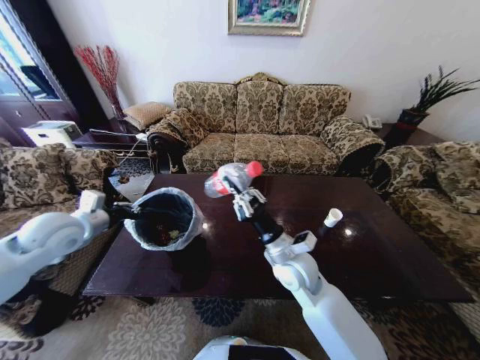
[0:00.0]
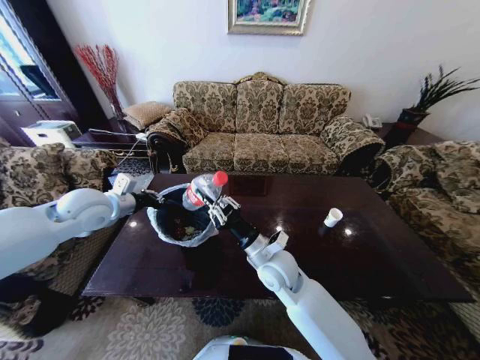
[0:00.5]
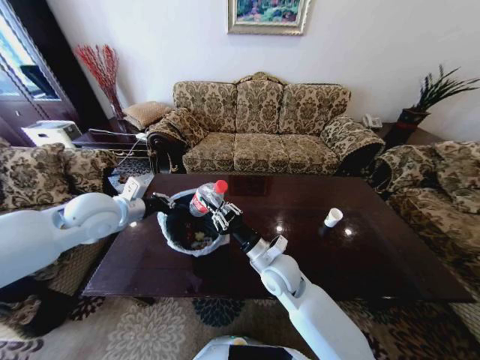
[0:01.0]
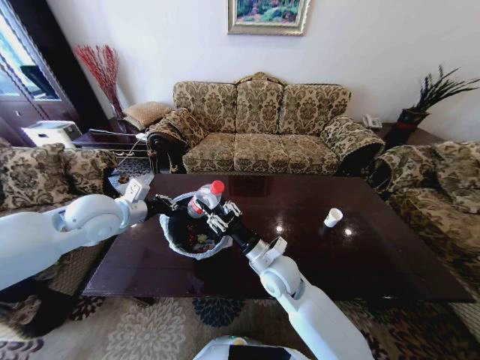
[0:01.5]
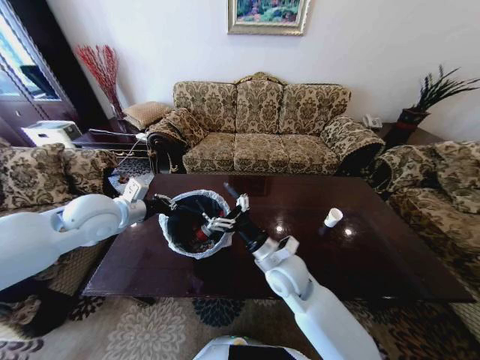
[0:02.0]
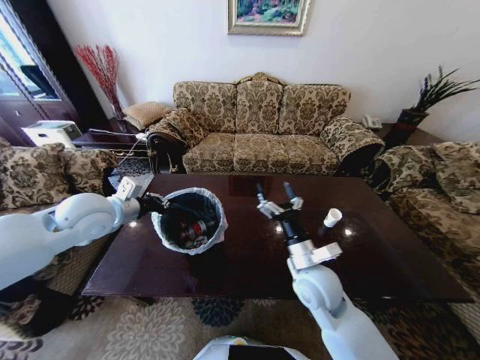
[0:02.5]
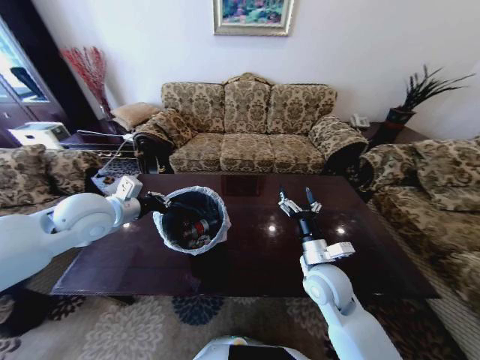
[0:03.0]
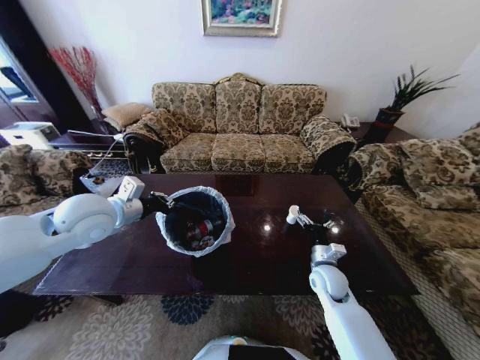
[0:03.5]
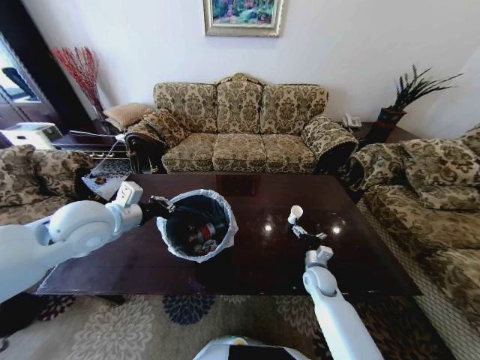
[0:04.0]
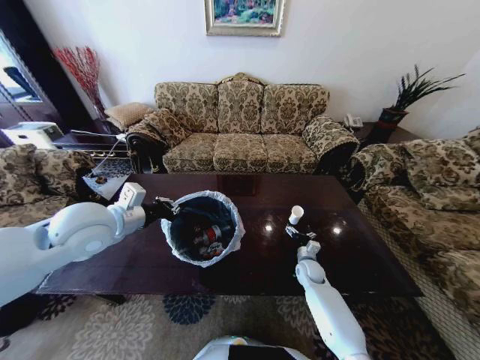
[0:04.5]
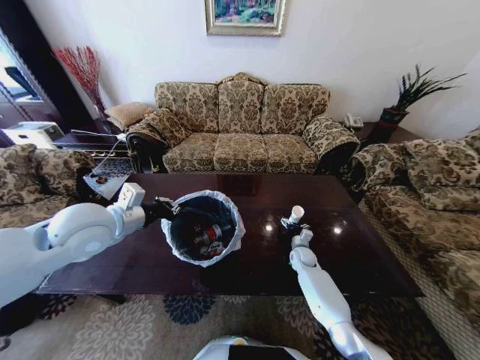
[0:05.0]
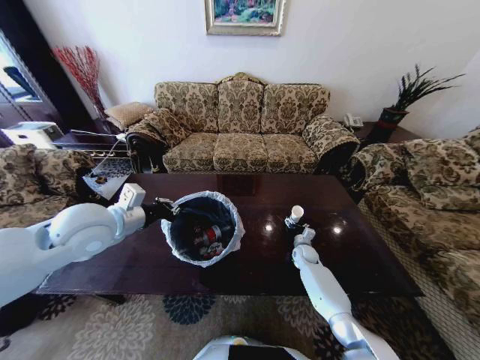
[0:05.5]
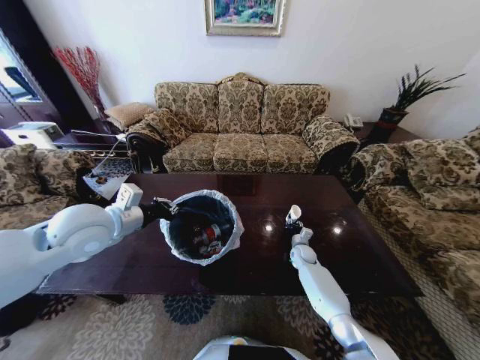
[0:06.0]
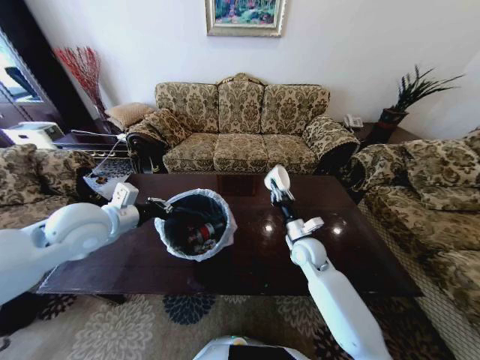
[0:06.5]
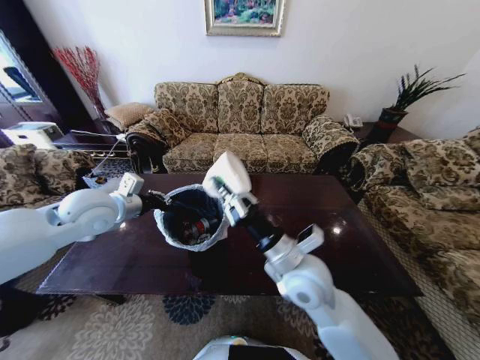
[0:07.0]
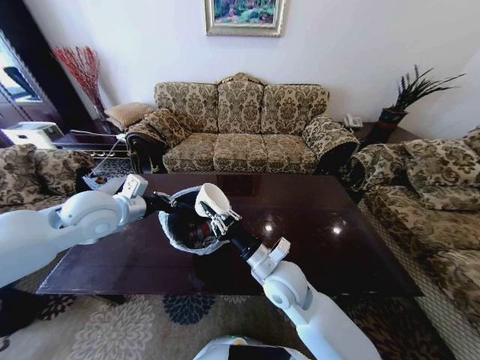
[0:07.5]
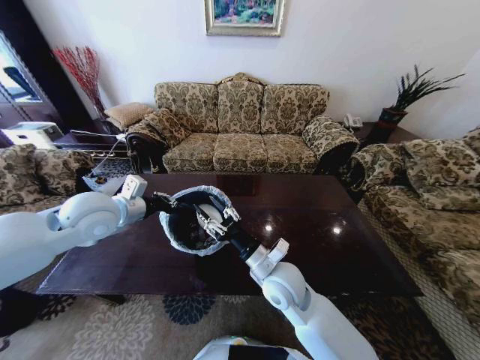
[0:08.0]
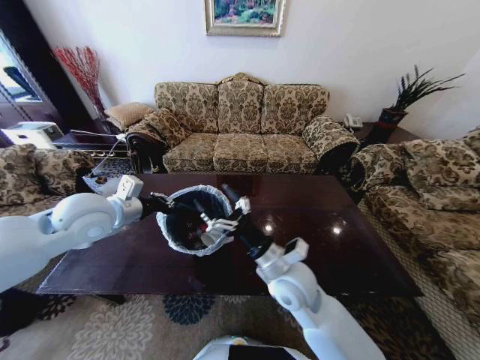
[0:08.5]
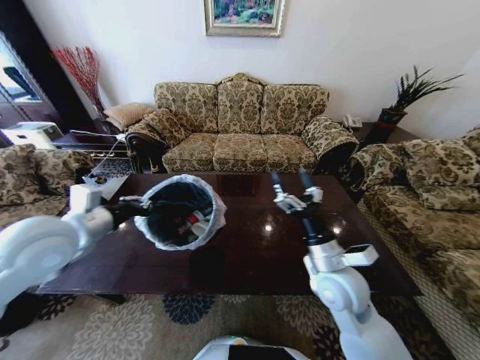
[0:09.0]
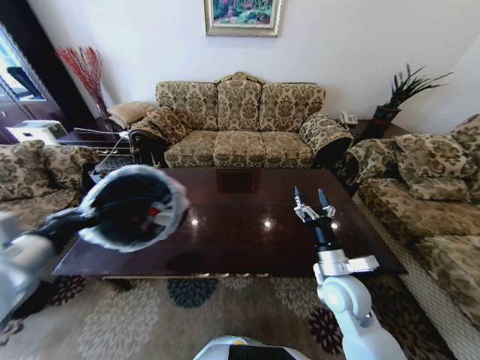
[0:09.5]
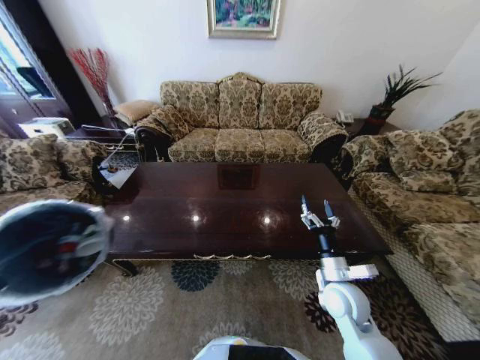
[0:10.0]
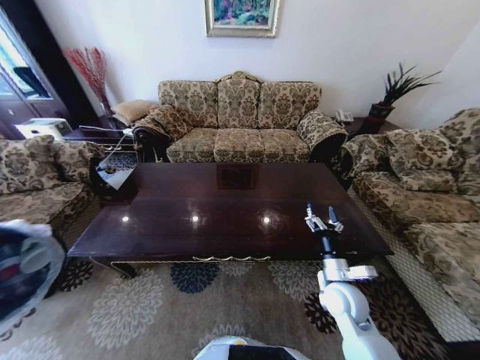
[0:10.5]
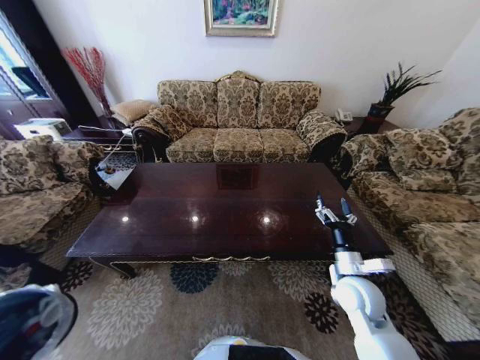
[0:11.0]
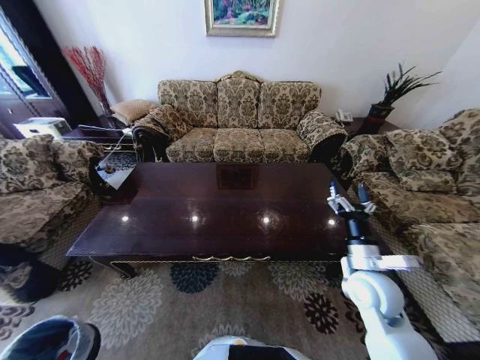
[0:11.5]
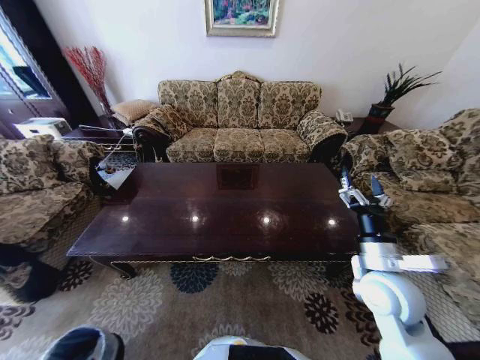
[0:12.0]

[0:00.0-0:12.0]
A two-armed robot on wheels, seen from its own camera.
Task of the whole recording: Move to the front of the table and place the trash on the table into the trash bin.
0:00.0 to 0:02.0: The left gripper is displaced to the right by roughly 10 cm. The right gripper opens up.
0:02.0 to 0:04.0: The right gripper is displaced downward and to the right by some 25 cm.
0:04.0 to 0:06.0: The right gripper goes approximately 15 cm forward and downward, and closes.
0:06.0 to 0:08.0: The right gripper is displaced upward, backward and to the left by about 35 cm.
0:08.0 to 0:10.0: The right gripper moves to the right, roughly 15 cm, and opens. The left gripper moves backward, about 25 cm.
0:10.0 to 0:12.0: The left gripper moves downward, some 40 cm; the right gripper shifts roughly 10 cm upward.

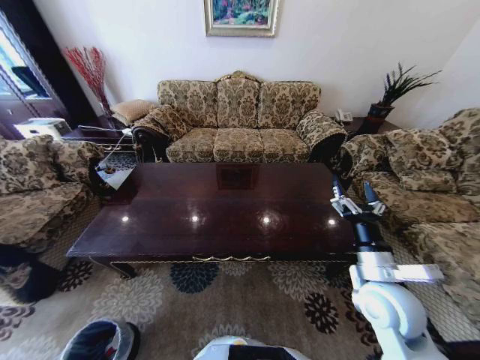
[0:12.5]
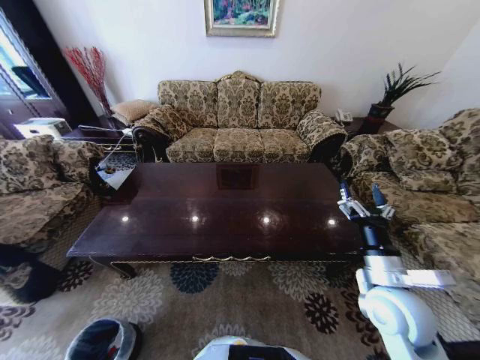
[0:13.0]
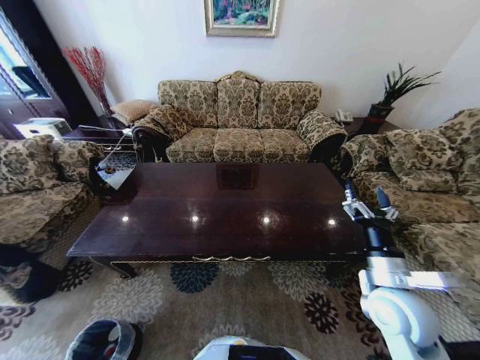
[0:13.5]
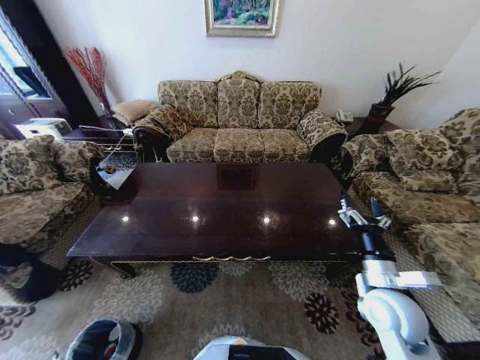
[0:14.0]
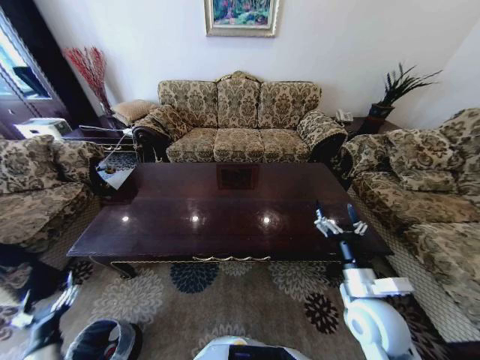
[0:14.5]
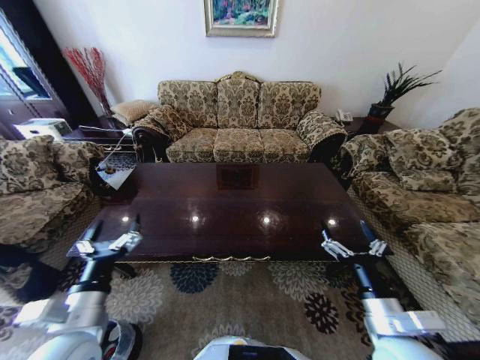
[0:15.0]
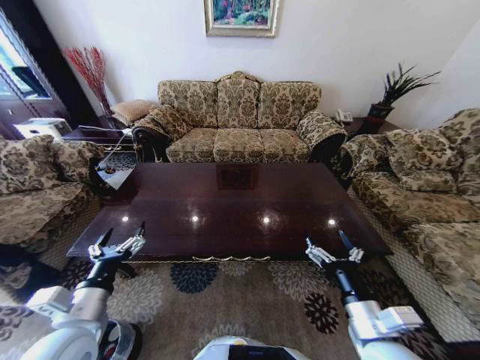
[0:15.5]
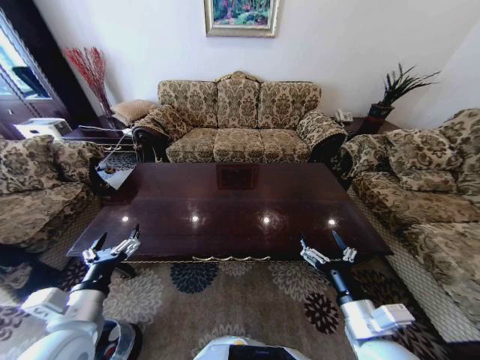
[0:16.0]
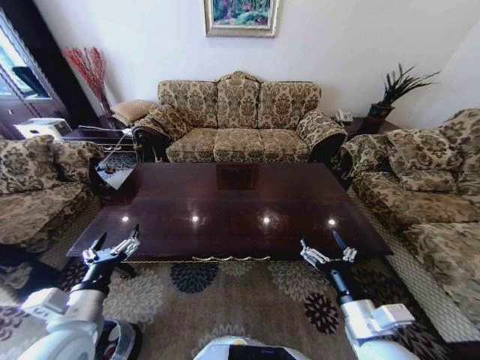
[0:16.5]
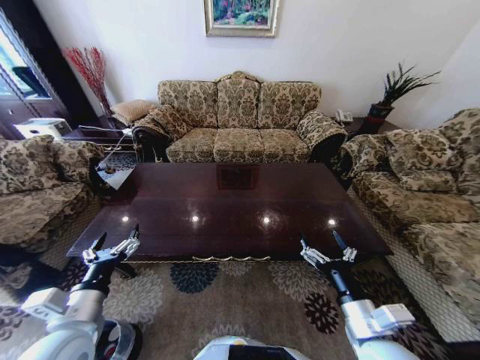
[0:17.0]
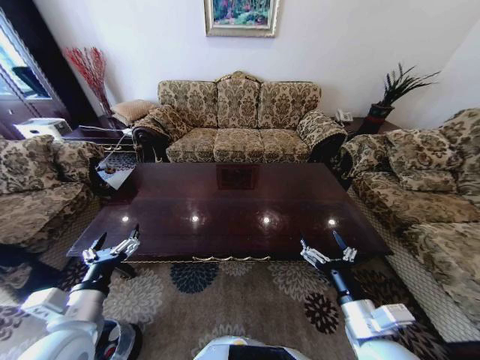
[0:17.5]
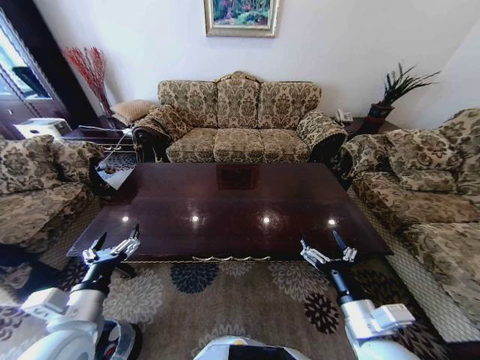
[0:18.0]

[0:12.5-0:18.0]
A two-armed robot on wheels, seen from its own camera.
Task of the whole recording: Move to the front of the table and place the trash on the table into the trash bin.
0:12.5 to 0:14.5: The left gripper is displaced upward by about 25 cm, and opens up. The right gripper ends up about 5 cm from where it was.
0:14.5 to 0:16.0: The right gripper travels backward by approximately 5 cm; the left gripper travels upward and to the right by roughly 20 cm.
0:16.0 to 0:18.0: Both grippers stay about where they are.
